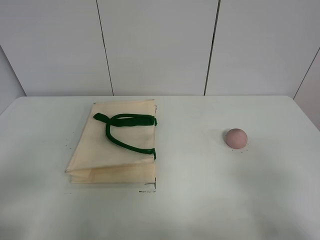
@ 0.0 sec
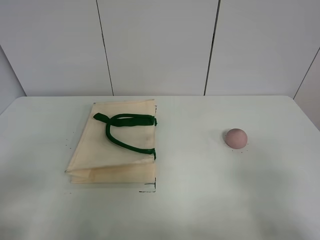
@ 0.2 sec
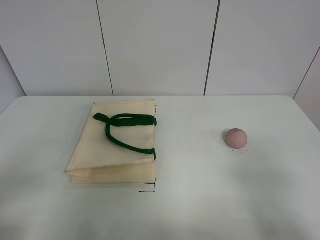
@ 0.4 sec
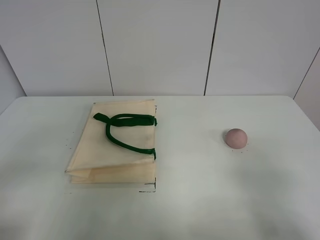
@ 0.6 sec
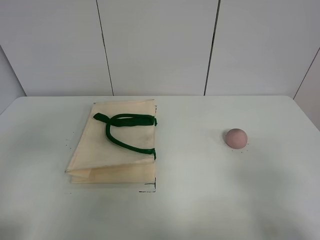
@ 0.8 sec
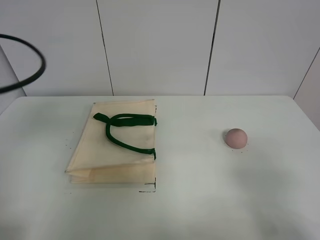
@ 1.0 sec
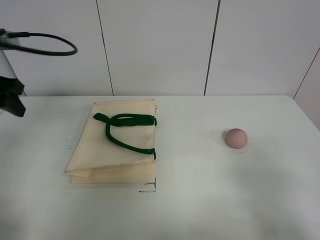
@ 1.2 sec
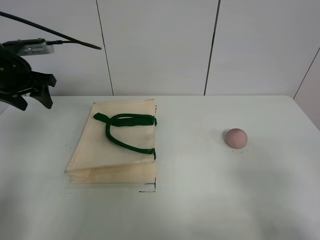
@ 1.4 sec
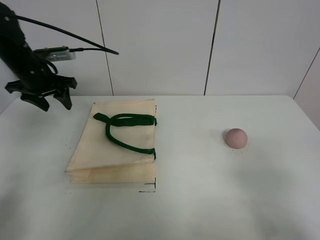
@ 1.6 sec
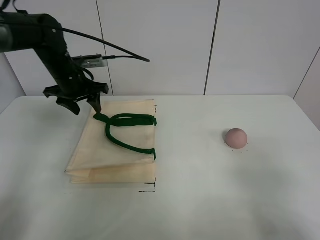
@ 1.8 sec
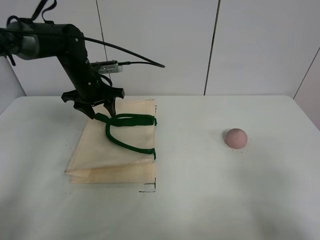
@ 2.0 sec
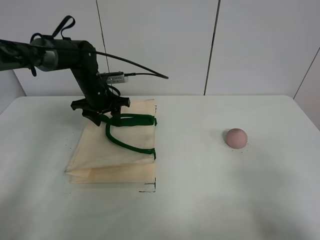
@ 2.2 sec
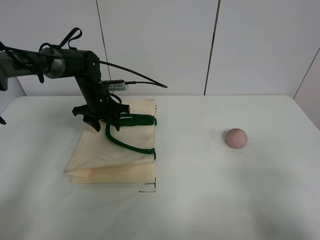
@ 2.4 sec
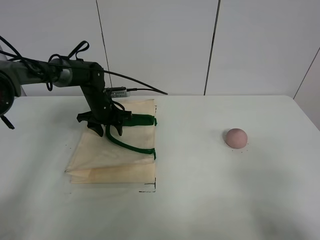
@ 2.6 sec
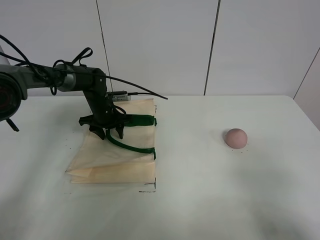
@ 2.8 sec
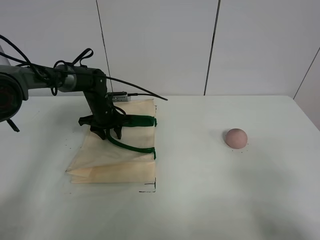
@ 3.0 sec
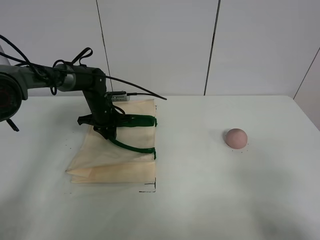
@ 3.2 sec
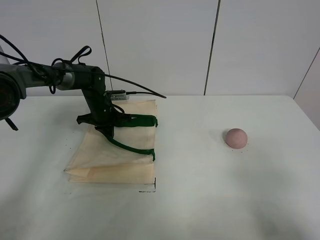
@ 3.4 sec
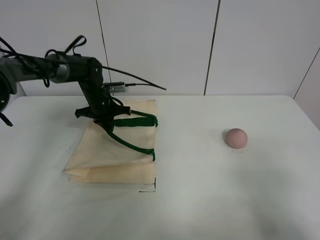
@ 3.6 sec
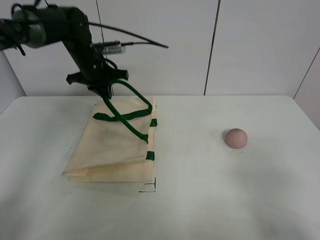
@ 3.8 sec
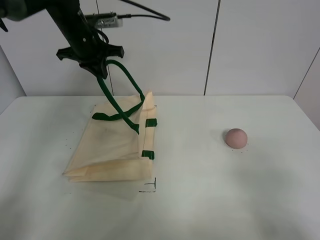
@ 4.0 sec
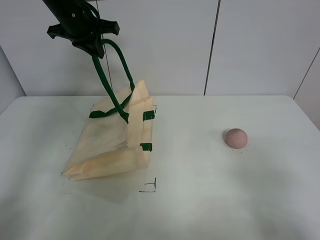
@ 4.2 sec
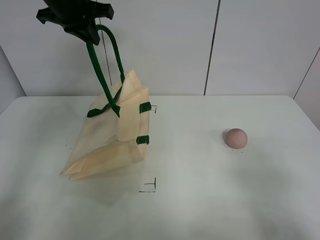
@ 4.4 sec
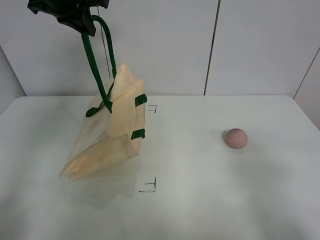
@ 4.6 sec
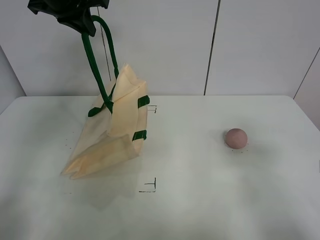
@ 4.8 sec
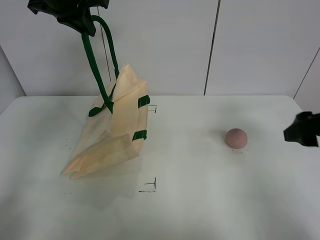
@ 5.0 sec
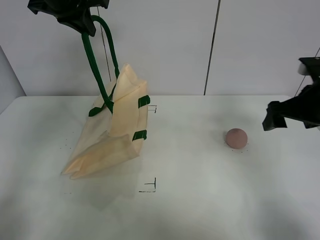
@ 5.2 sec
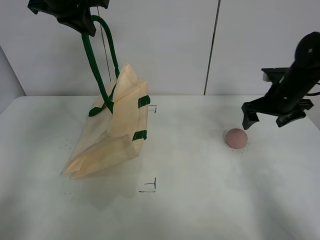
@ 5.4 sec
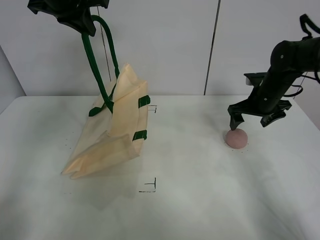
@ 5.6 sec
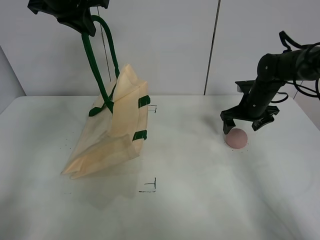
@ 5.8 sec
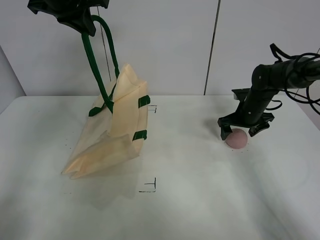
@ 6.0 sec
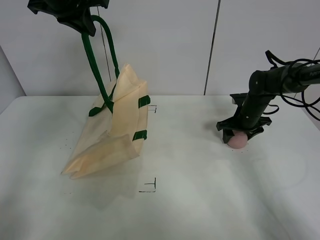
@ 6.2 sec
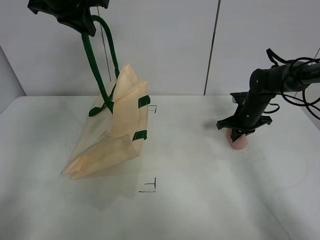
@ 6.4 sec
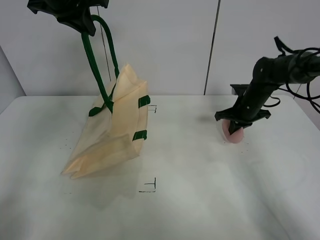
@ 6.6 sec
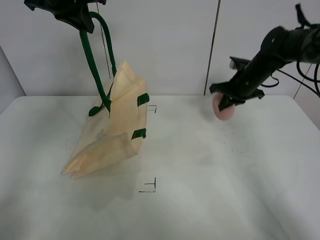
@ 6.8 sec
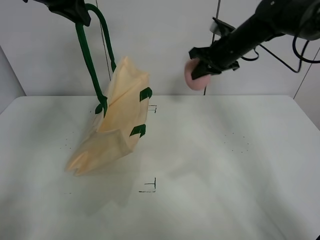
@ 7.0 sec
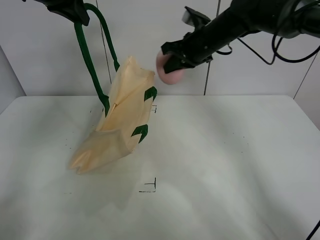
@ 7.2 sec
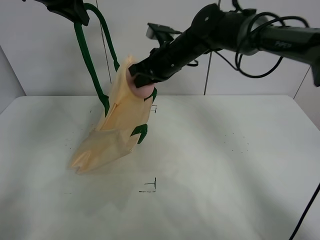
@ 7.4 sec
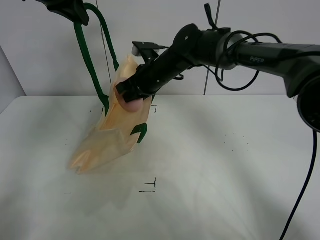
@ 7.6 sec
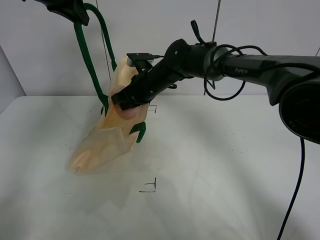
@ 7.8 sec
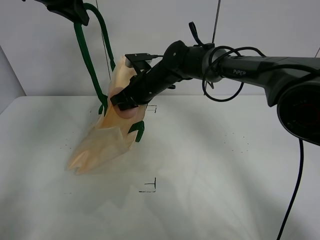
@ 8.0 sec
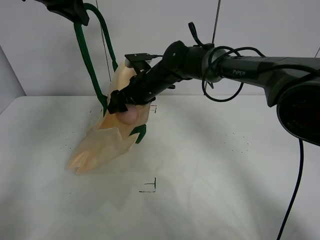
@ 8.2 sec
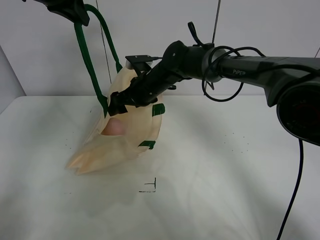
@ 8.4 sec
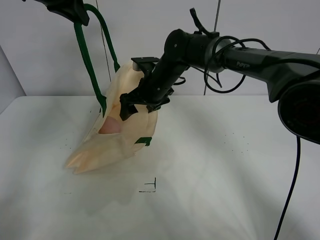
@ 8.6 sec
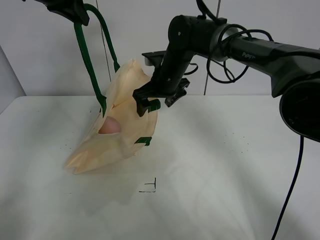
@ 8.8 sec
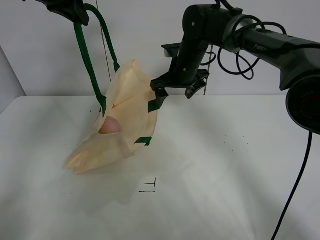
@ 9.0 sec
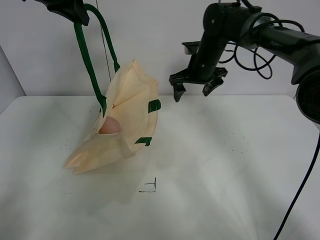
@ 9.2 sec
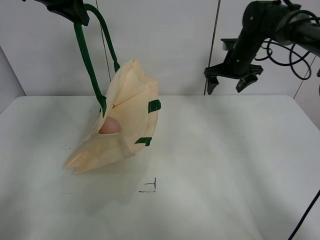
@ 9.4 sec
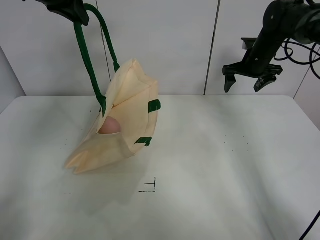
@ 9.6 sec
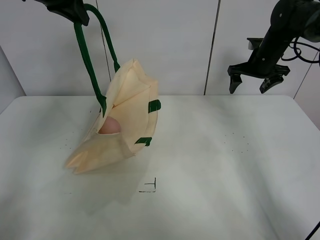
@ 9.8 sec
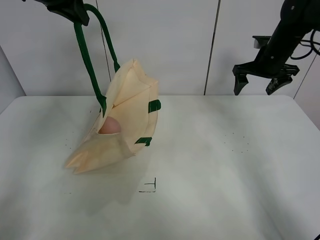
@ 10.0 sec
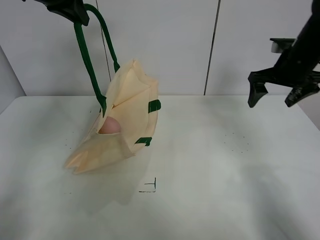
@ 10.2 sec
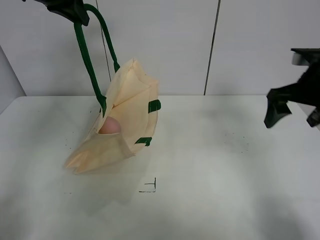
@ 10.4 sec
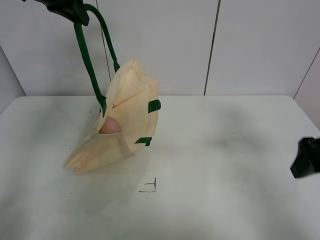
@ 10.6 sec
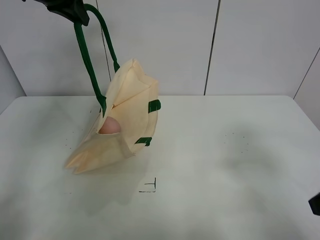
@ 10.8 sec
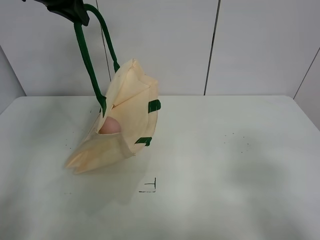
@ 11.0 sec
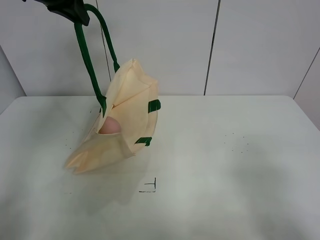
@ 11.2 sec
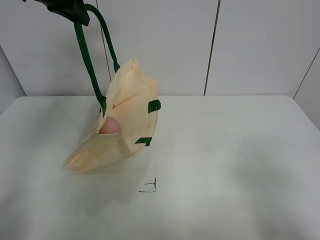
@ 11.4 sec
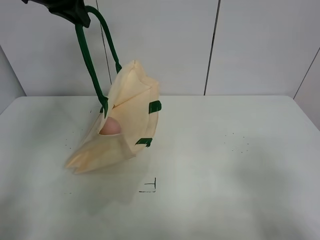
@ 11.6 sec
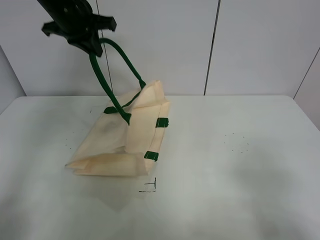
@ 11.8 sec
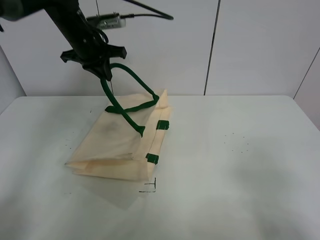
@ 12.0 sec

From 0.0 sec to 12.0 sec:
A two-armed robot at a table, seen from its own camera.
Task of the whole recording: open the white linen bag and put the peach in the bag.
Step, from 0.0 sec to 4.8 sec: Lift the handbag with left gripper.
Step, from 5.0 sec to 6.4 sec: Grasp the peach with right gripper.
Step, from 6.6 sec to 8.2 sec: Place the peach in the handbag with right gripper.
From 0.0 sec to 1.6 sec: The left gripper is displaced forward by some 40 cm.
From 1.6 sec to 3.0 sec: The left gripper travels downward and to the right by some 20 cm.
From 3.0 sec to 4.4 sec: The left gripper moves upward, some 30 cm, and closes.
From 4.4 sec to 6.0 sec: The right gripper is displaced forward by approximately 40 cm.
From 6.0 sec to 7.6 sec: The right gripper shifts approximately 25 cm to the left and upward, and closes up.
From 7.6 sec to 9.0 sec: The right gripper travels to the right by some 5 cm, and opens.
From 9.0 sec to 10.4 sec: The right gripper is displaced to the right and backward by approximately 25 cm.
From 10.4 sec to 12.0 sec: The left gripper shifts approximately 15 cm downward and forward. The right gripper goes about 30 cm backward.

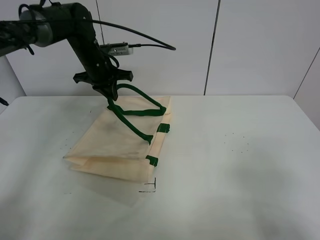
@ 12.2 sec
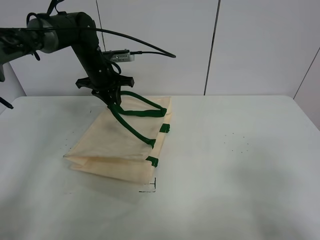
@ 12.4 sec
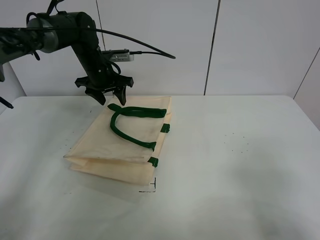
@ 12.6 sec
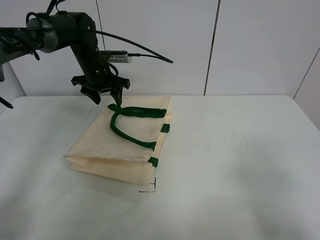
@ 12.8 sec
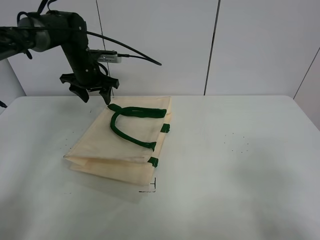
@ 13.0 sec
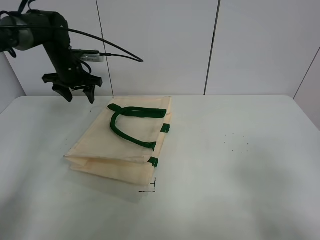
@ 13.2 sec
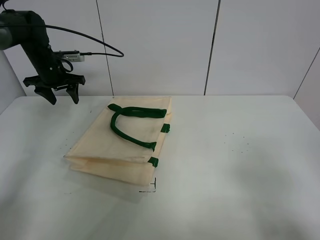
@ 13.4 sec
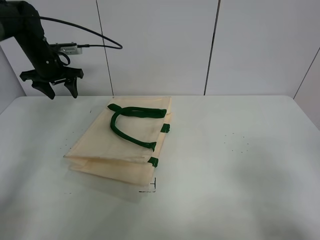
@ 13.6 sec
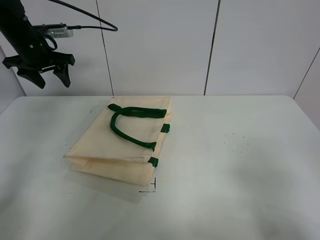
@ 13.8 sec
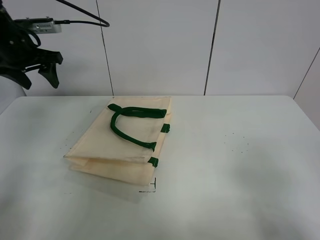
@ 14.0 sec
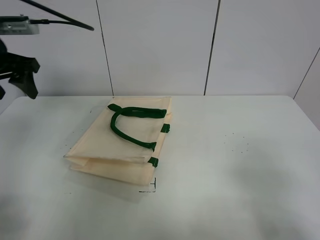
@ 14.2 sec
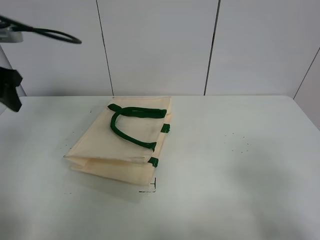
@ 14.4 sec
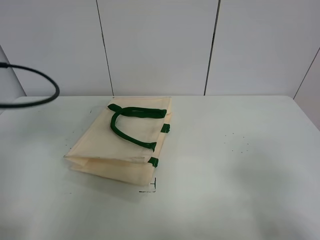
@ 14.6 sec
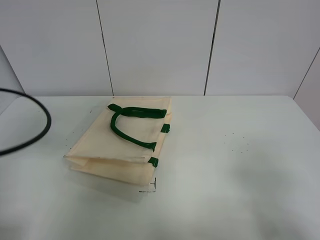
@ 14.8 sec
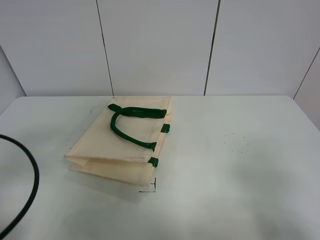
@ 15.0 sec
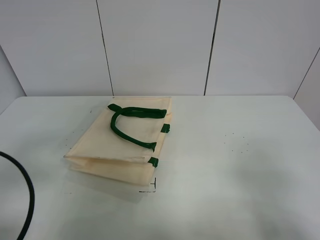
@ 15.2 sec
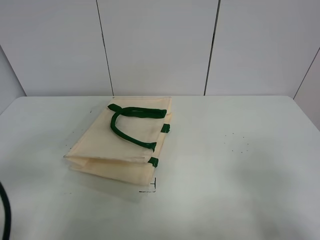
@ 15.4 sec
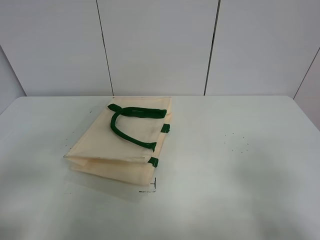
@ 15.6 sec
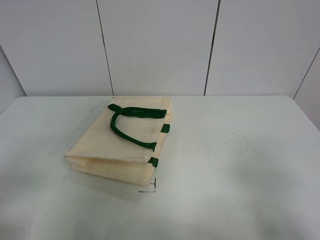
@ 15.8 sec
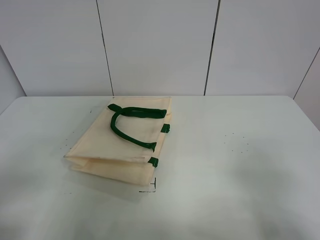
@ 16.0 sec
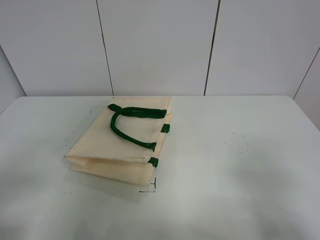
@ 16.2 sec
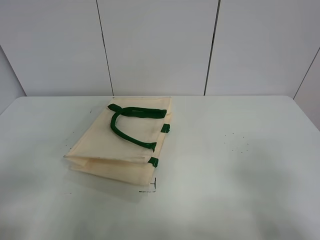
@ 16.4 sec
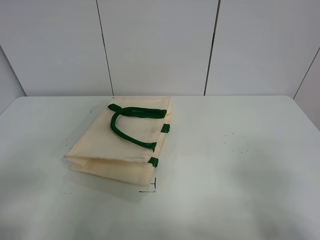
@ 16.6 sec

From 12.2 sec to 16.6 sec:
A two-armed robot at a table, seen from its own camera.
Task of the whole recording: open the white linen bag and put the peach in the bag.
From 12.2 sec to 13.6 sec: The left gripper moves to the left, approximately 15 cm, and opens up.
From 13.6 sec to 15.2 sec: The left gripper travels backward by roughly 40 cm.
From 15.2 sec to 16.6 sec: The left gripper is displaced backward by some 5 cm.
